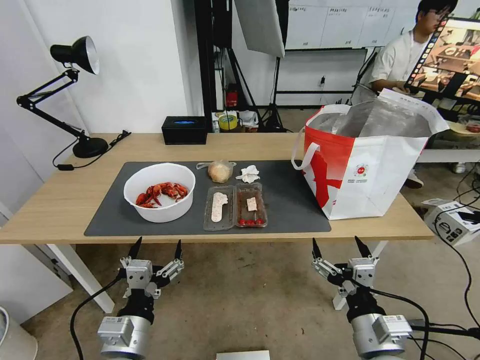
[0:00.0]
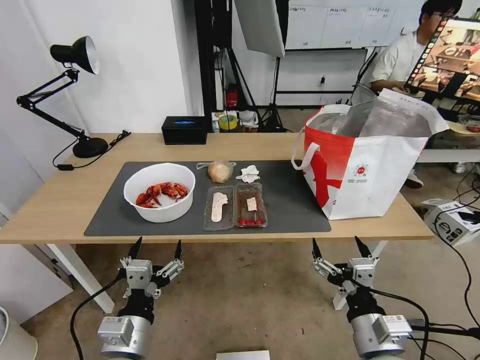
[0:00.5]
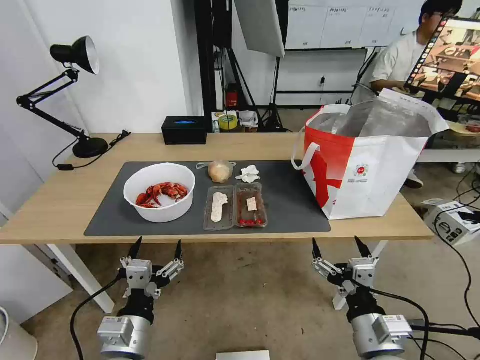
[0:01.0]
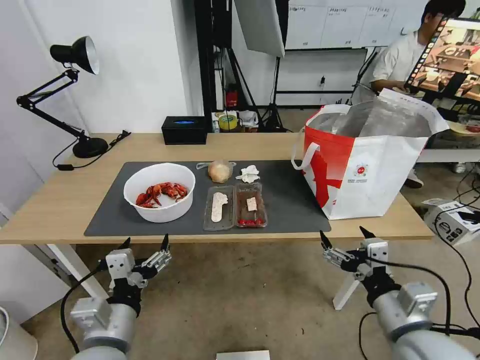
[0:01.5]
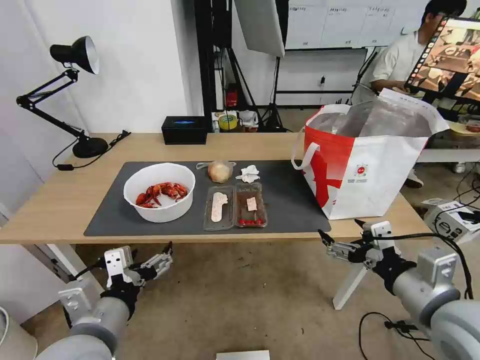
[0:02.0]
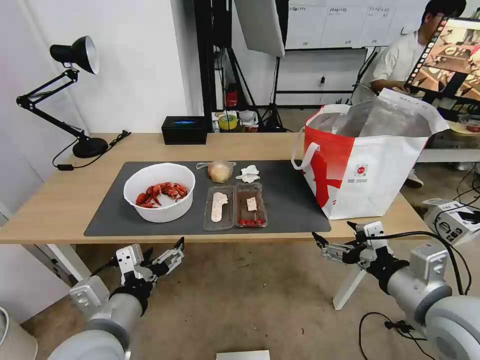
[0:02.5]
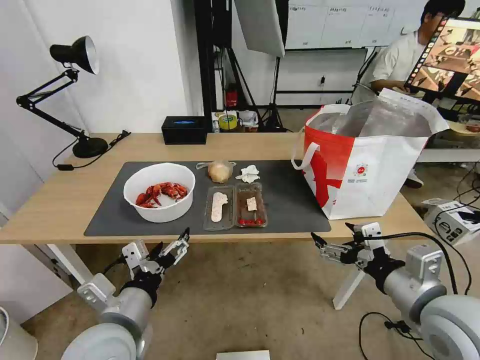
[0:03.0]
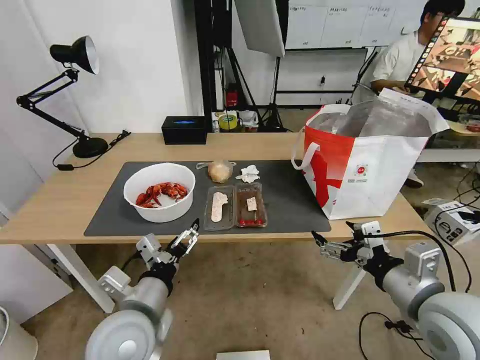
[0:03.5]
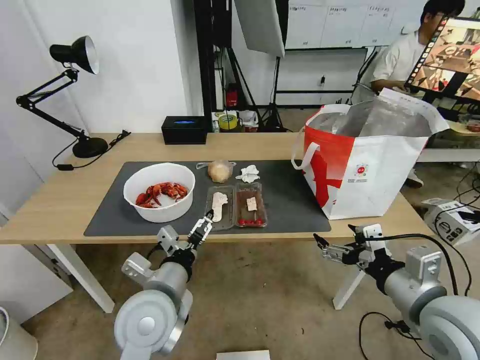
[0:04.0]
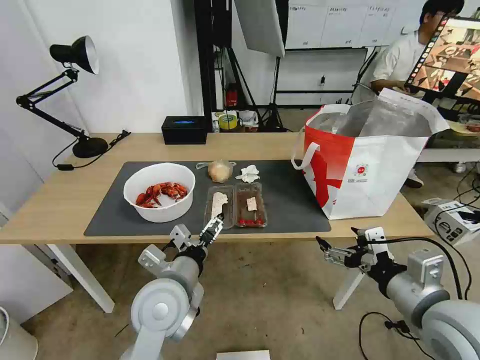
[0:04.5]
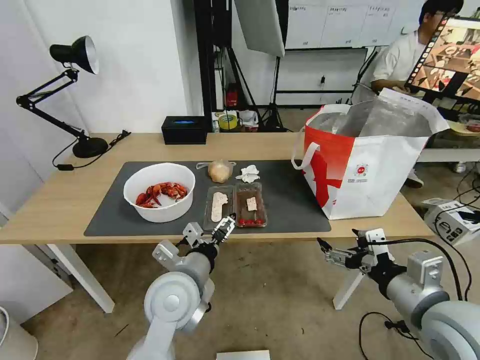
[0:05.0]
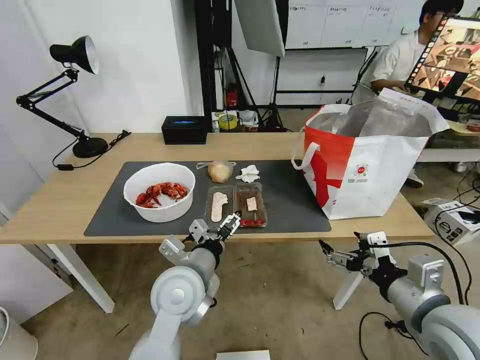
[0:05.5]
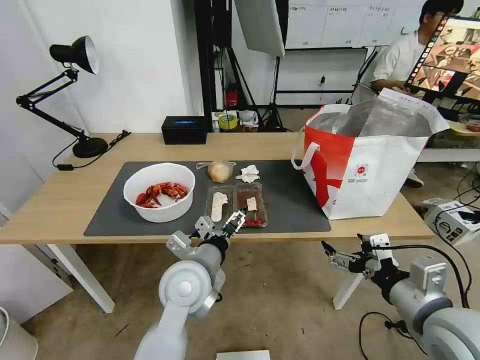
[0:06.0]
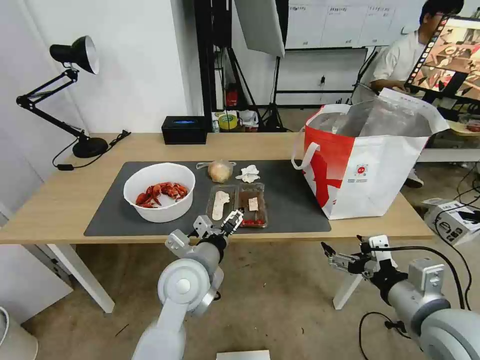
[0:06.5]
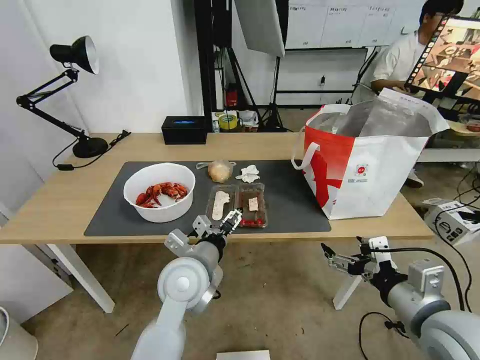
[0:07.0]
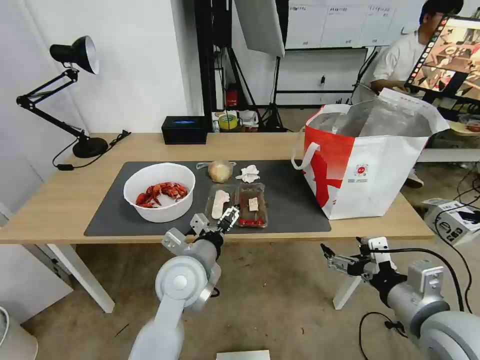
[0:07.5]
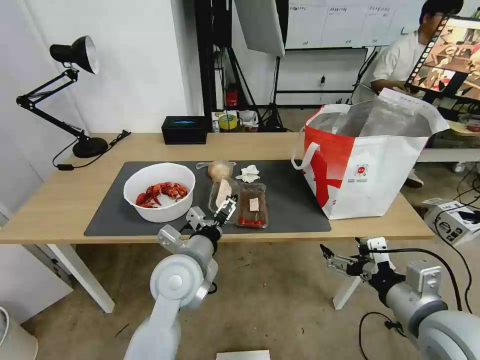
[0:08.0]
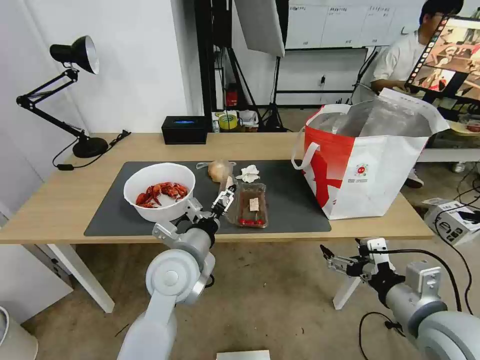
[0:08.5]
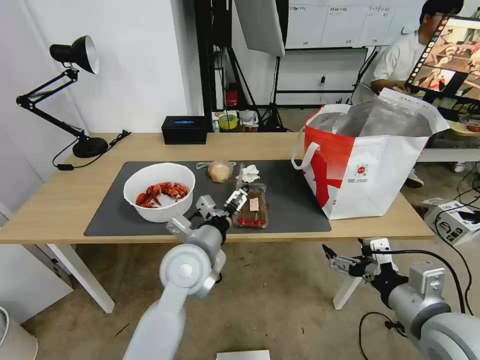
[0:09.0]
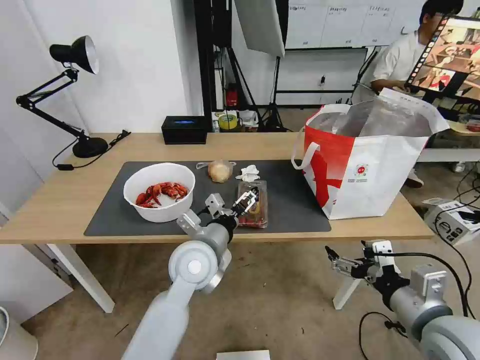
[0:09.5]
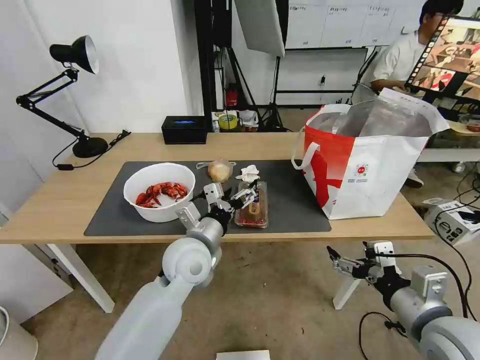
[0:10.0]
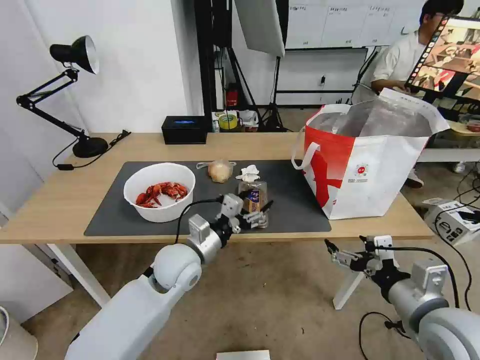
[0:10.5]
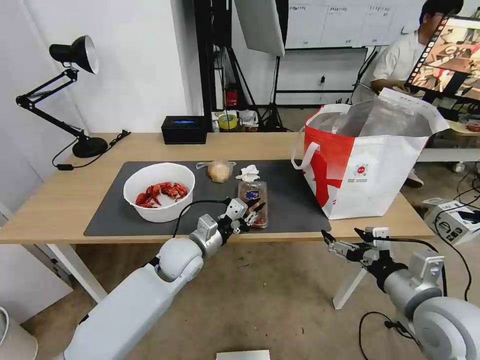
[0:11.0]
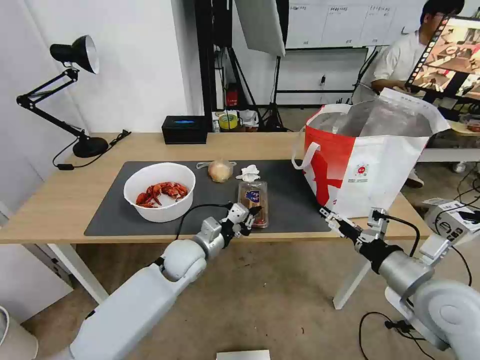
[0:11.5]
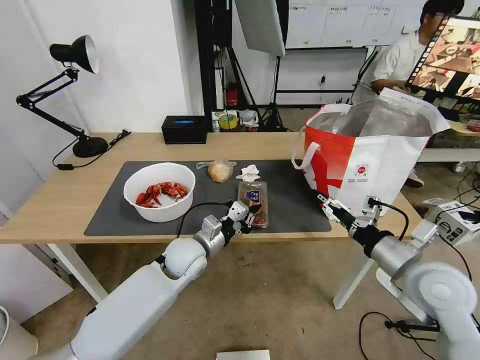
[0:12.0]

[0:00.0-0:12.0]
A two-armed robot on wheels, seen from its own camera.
Task of the whole recording: Pick up the trash from the table and place it into the takeout bag.
0:02.0 to 0:04.0: The left gripper heads forward and to the right, covering about 10 cm.
0:04.0 to 0:06.0: The left gripper shifts approximately 10 cm forward and to the right.
0:06.0 to 0:08.0: The grippers move only a little.
0:10.0 to 0:12.0: The right gripper goes roughly 10 cm forward; the left gripper goes approximately 5 cm downward, and closes.

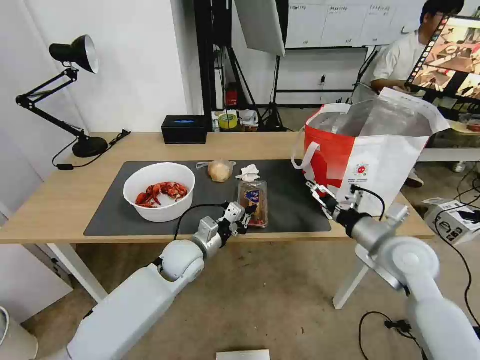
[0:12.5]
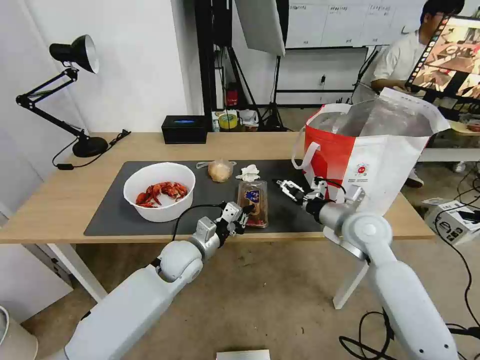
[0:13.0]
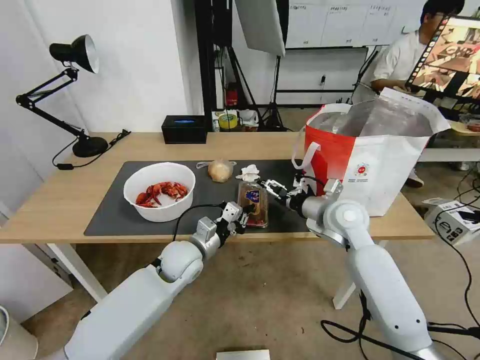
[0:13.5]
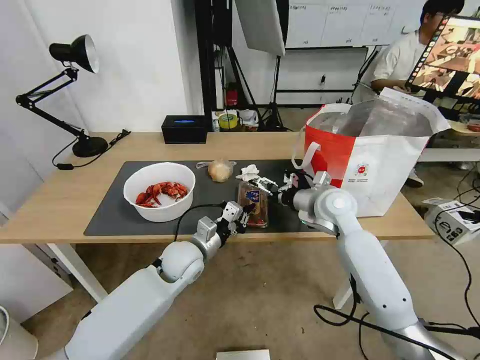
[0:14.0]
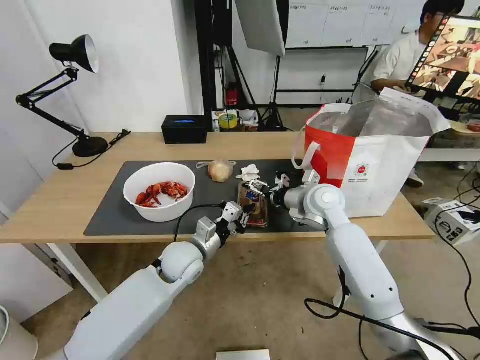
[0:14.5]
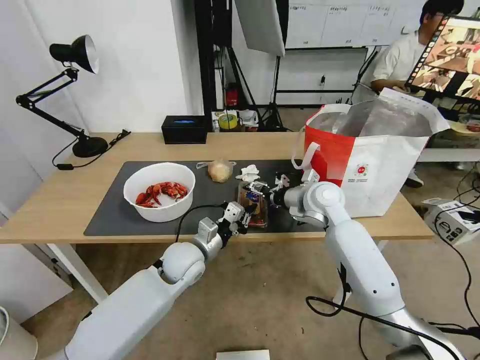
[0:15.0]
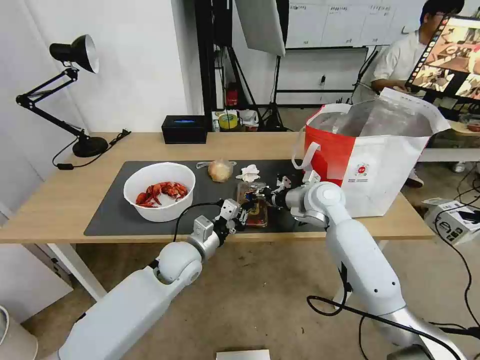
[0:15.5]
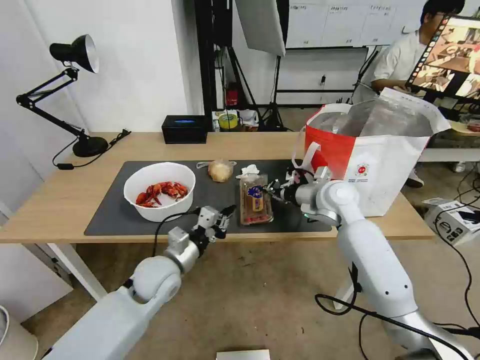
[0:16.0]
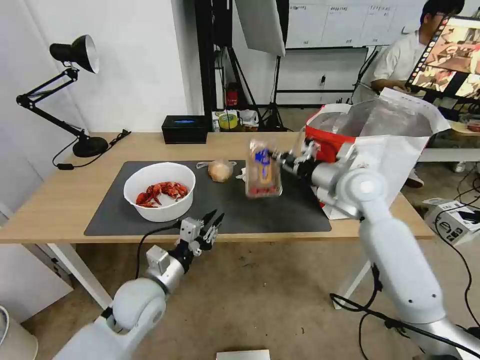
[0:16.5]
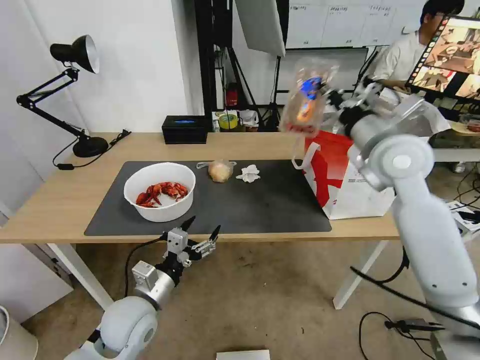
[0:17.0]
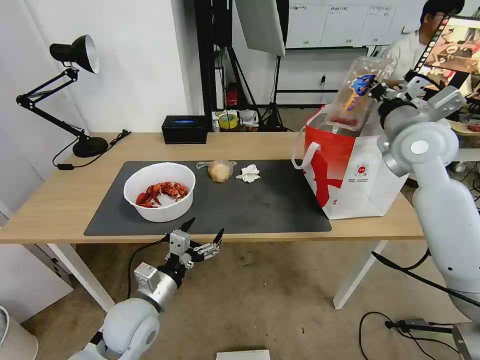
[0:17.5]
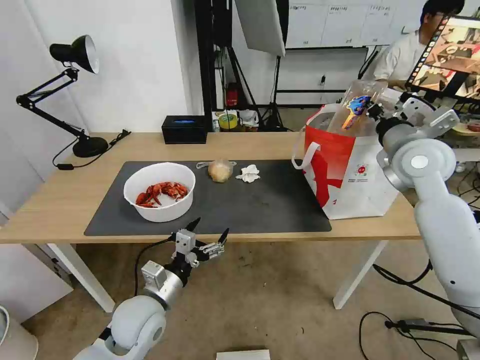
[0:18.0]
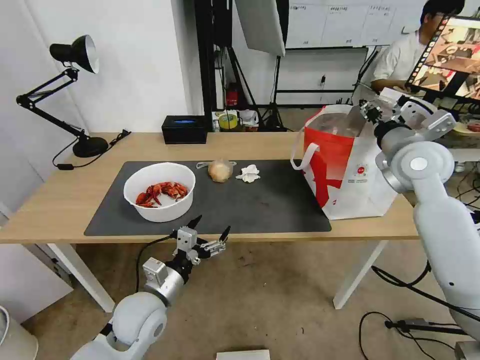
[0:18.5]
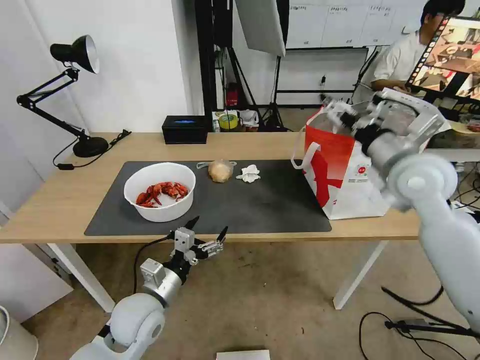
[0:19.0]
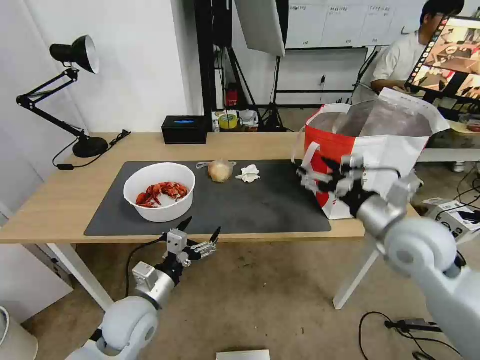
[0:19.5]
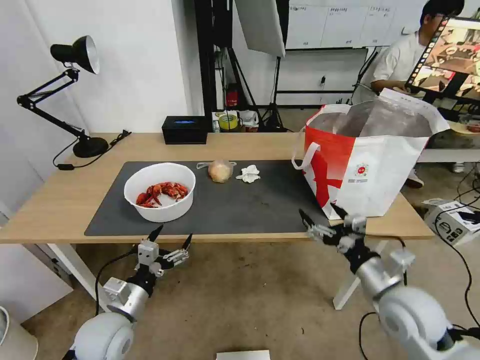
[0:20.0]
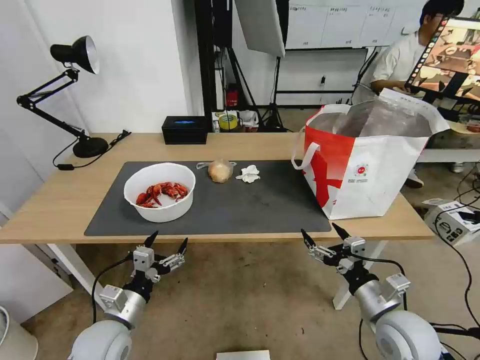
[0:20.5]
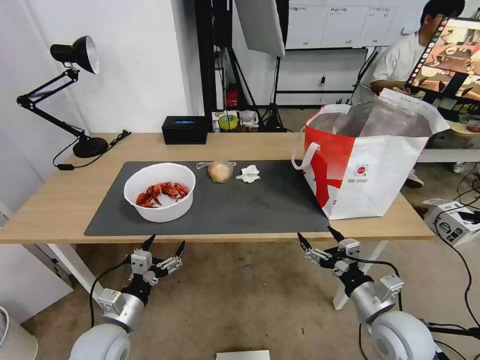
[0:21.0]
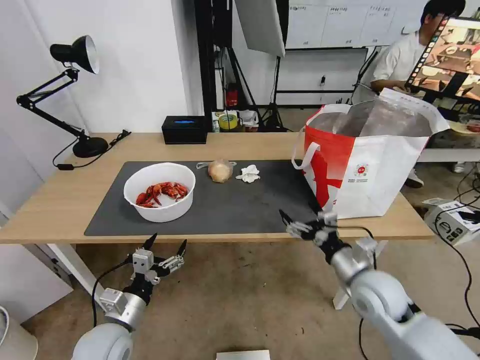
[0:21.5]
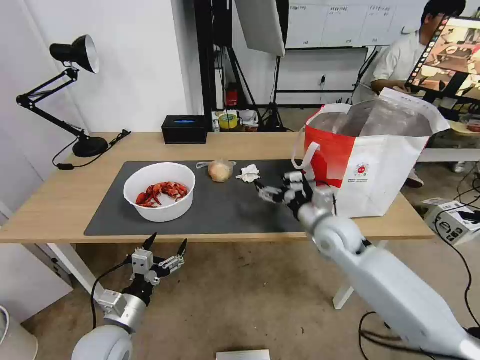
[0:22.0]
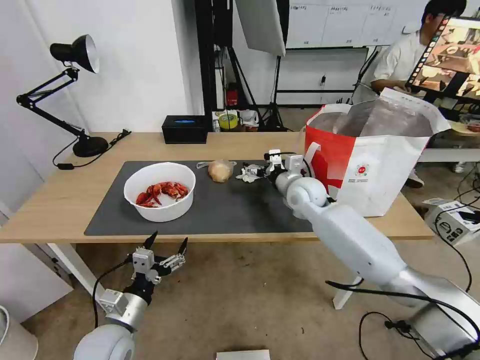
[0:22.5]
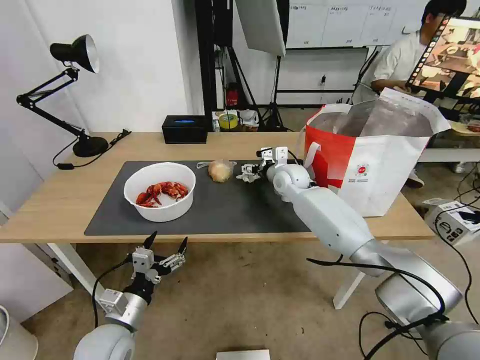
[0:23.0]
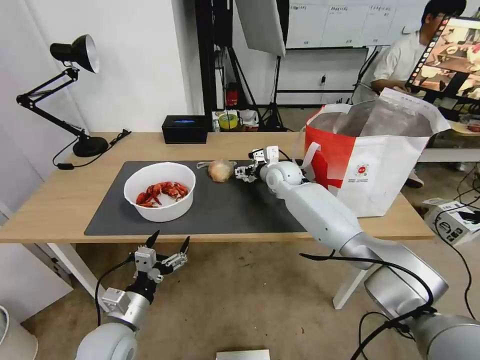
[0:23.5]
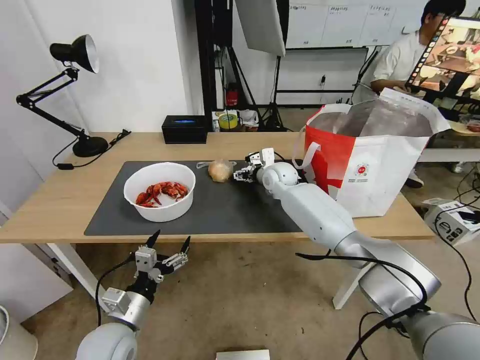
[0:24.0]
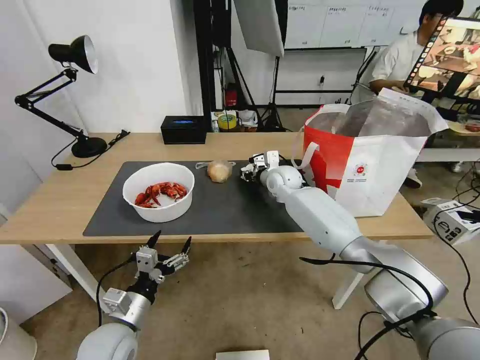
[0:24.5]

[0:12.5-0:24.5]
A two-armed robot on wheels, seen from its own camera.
Task of the whole recording: Pick up the trash from the table and place it into the takeout bag.
0:12.5 to 0:14.5: The right gripper is displaced forward and to the left by roughly 20 cm.
0:14.5 to 0:16.5: The left gripper goes roughly 10 cm backward and to the left, while the right gripper heads upward, covering roughly 5 cm, and closes.
0:16.5 to 0:18.5: The right gripper is displaced to the right and upward by roughly 10 cm, and opens. The left gripper opens up.
0:18.5 to 0:20.5: The left gripper moves to the left, roughly 5 cm. The right gripper moves backward and downward, approximately 35 cm, and opens up.
0:20.5 to 0:22.5: The right gripper heads forward and to the left, covering approximately 35 cm.
0:22.5 to 0:24.5: The right gripper travels forward by approximately 10 cm, and closes.

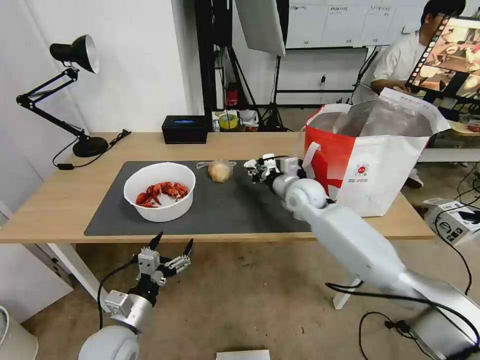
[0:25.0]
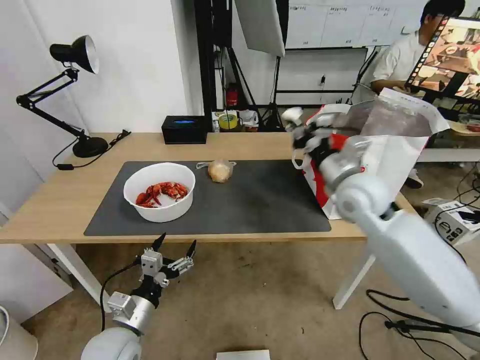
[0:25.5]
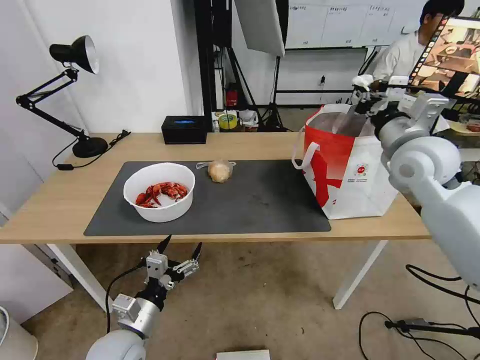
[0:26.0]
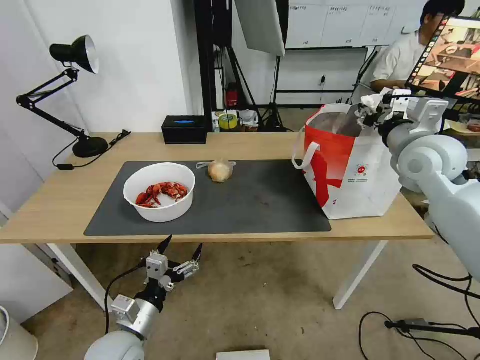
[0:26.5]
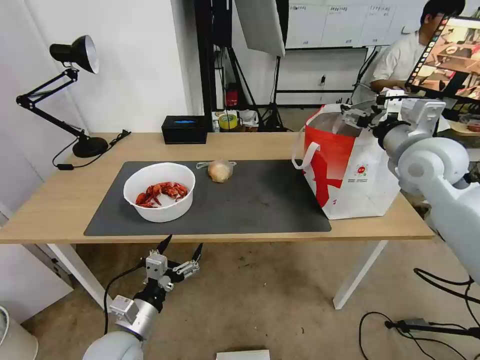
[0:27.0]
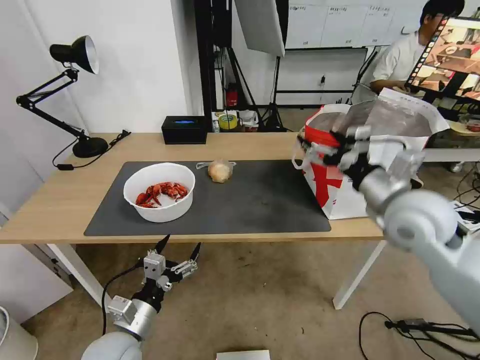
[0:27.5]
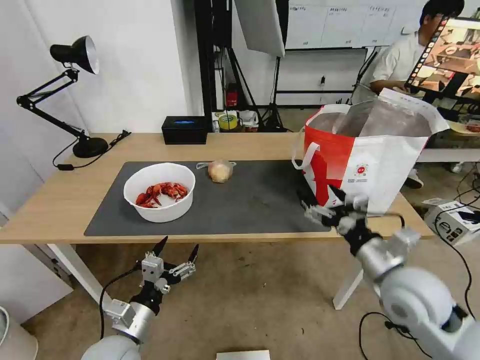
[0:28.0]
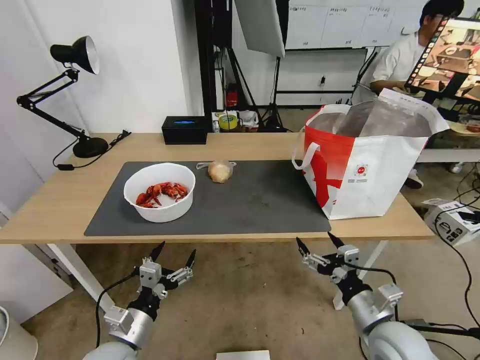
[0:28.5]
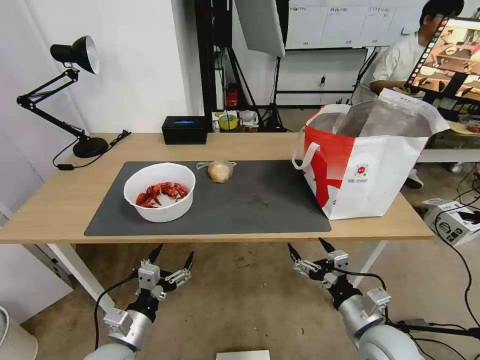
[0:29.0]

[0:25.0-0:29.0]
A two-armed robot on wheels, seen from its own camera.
Task of the whole recording: Pick up the trash from the table and place it into the takeout bag.
0:25.0 to 0:27.0: The right gripper moves to the right, upward and backward, roughly 25 cm, and opens.
0:27.0 to 0:29.0: The right gripper moves downward and backward, approximately 35 cm.
